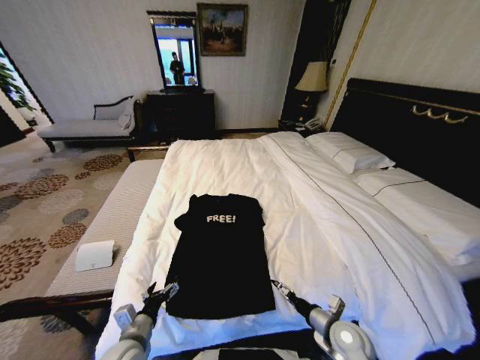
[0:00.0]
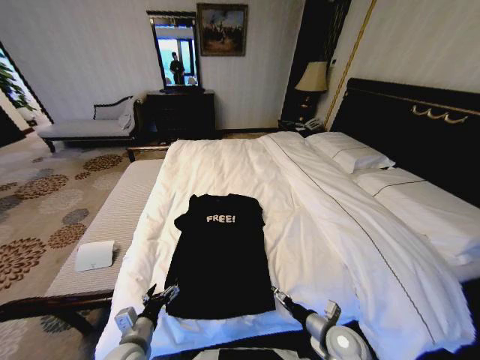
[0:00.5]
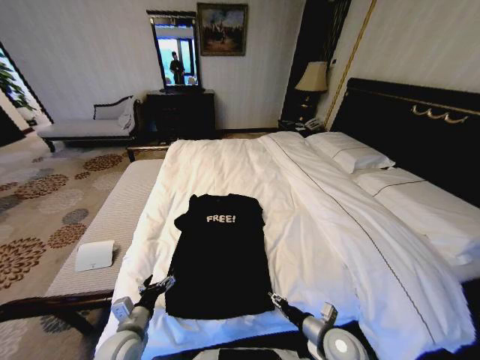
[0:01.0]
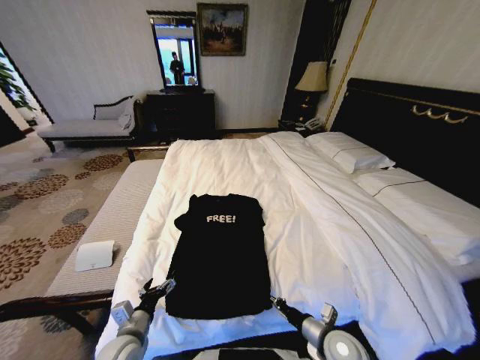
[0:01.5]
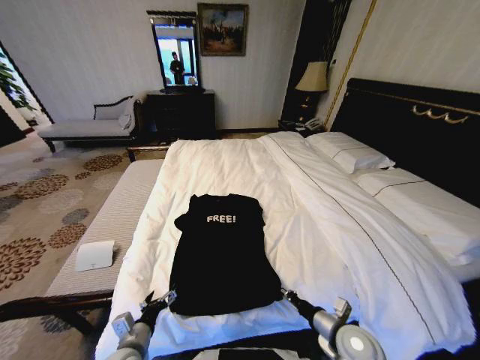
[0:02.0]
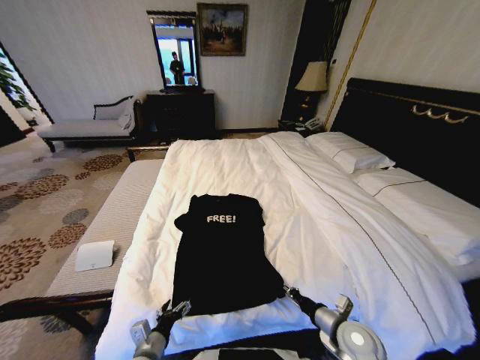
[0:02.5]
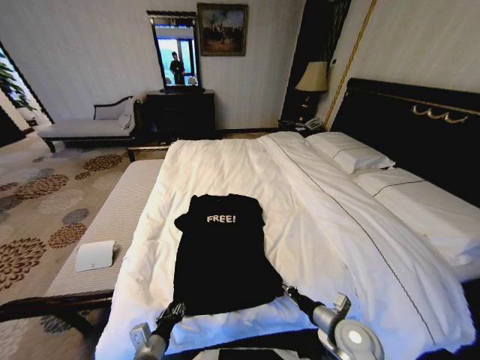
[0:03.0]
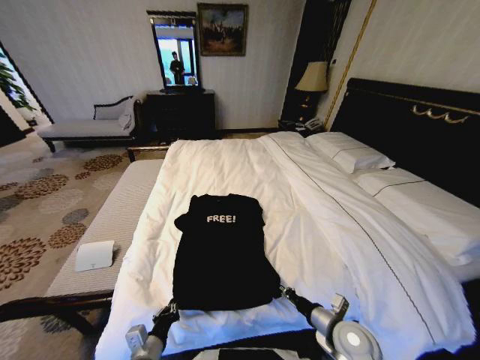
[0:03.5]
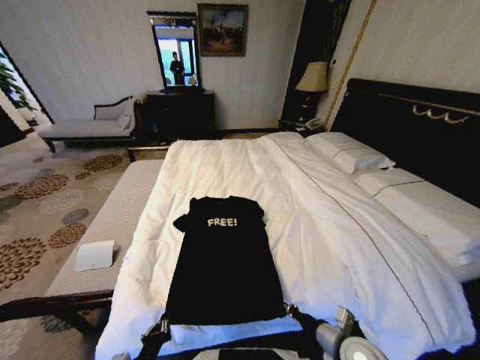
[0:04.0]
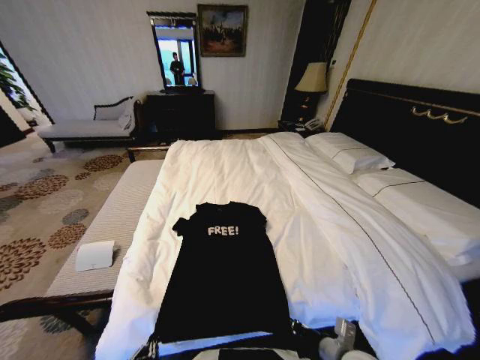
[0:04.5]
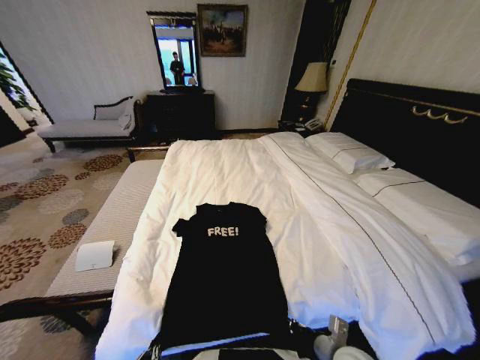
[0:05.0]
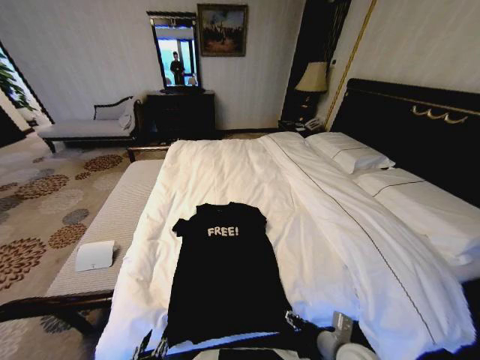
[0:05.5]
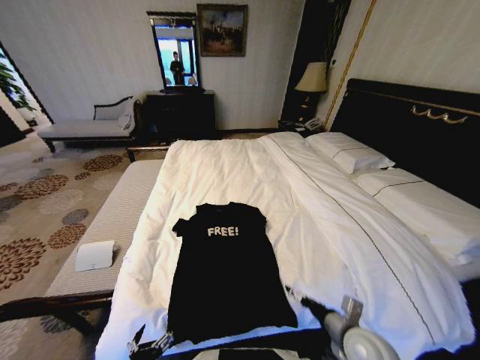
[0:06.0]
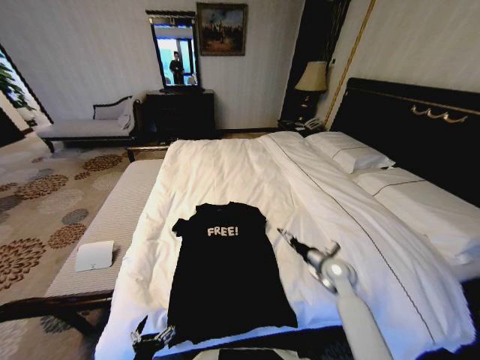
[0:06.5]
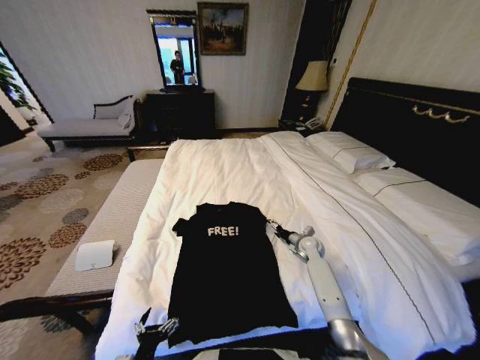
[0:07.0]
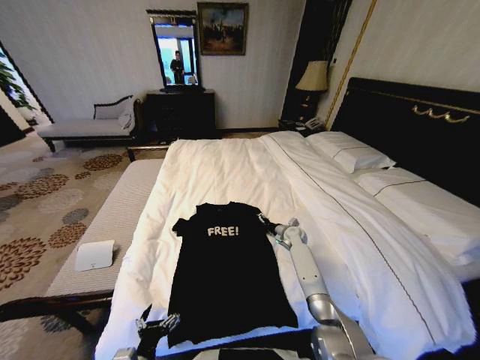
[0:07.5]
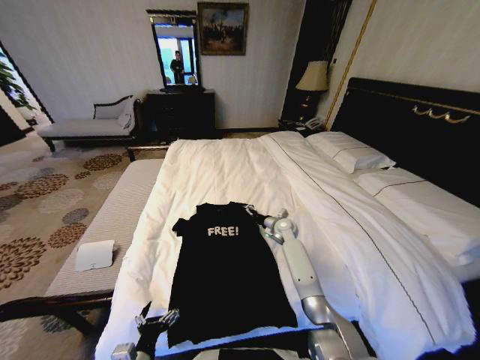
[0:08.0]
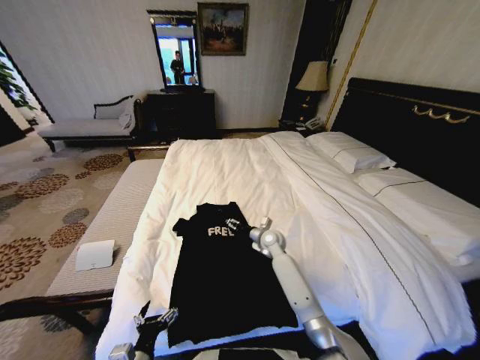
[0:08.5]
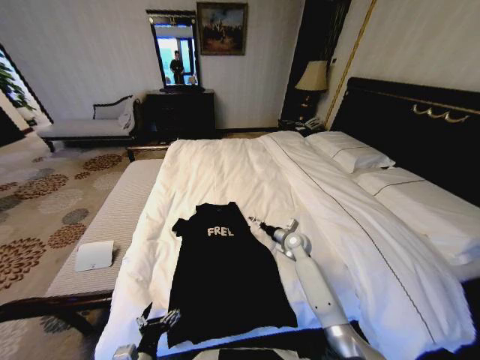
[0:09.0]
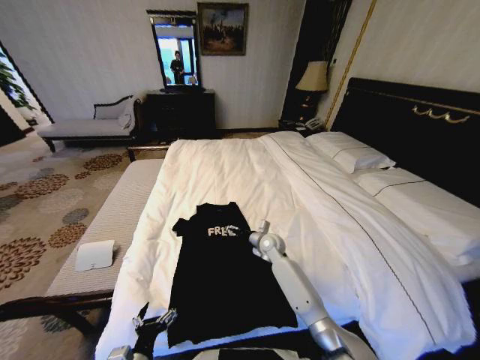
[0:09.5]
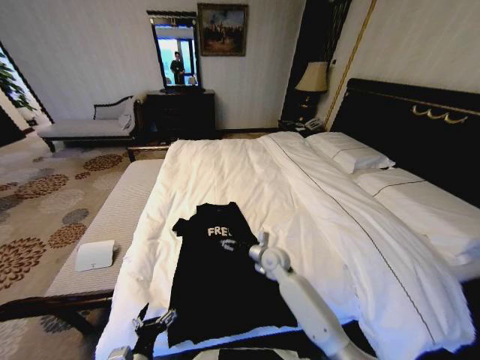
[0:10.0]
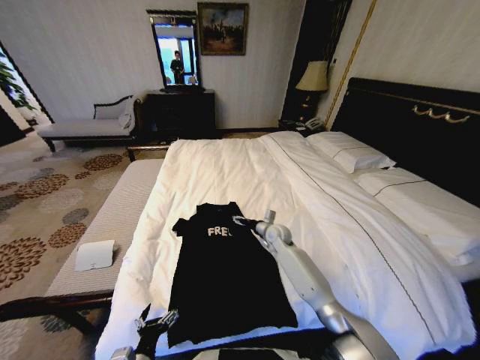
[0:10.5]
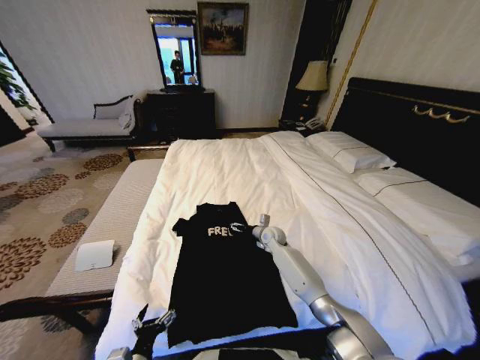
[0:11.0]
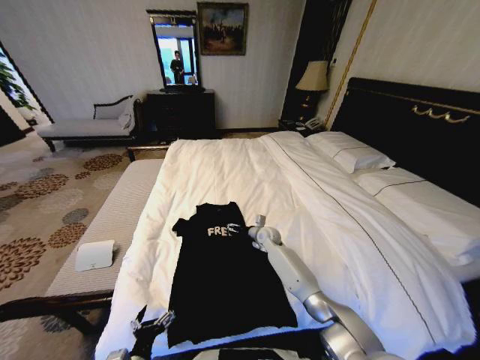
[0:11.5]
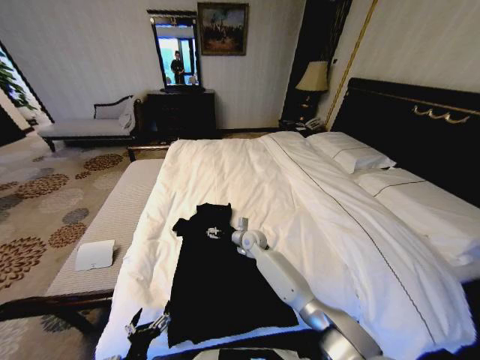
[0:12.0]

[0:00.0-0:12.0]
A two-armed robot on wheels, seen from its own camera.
Task of the whole recording: Fold the clothes on the bed.
0:00.0 to 0:02.0: The right gripper closes its fingers.
0:02.0 to 0:04.0: The left gripper goes about 10 cm backward, and closes up.
0:04.0 to 0:06.0: The left gripper opens up; the right gripper opens up.
0:06.0 to 0:08.0: The left gripper travels forward by approximately 5 cm; the right gripper shifts approximately 35 cm forward.
0:08.0 to 0:10.0: The right gripper shifts roughly 15 cm backward and to the left.
0:10.0 to 0:12.0: The right gripper moves forward and to the left, approximately 10 cm.

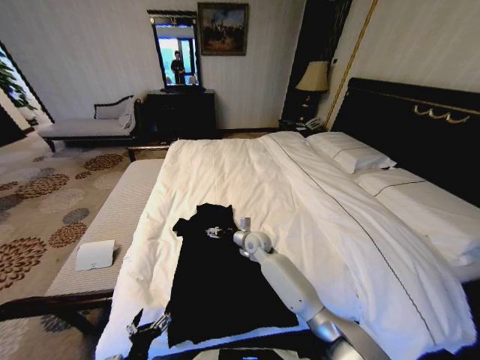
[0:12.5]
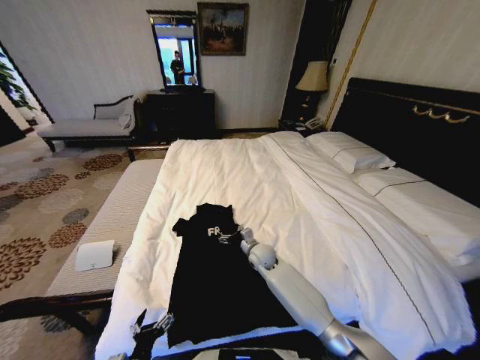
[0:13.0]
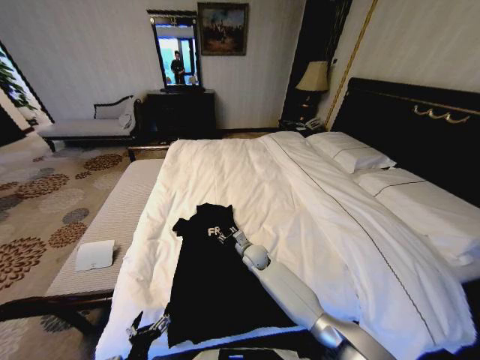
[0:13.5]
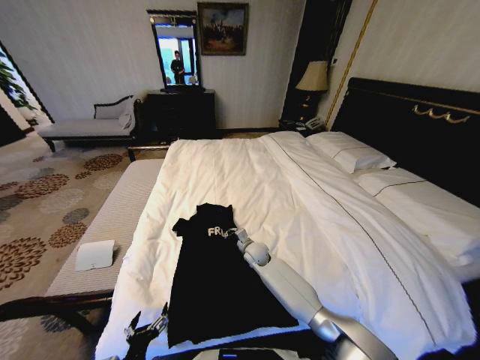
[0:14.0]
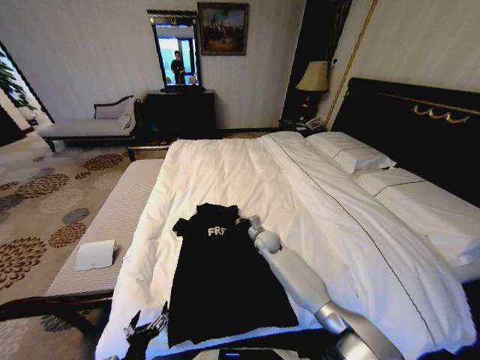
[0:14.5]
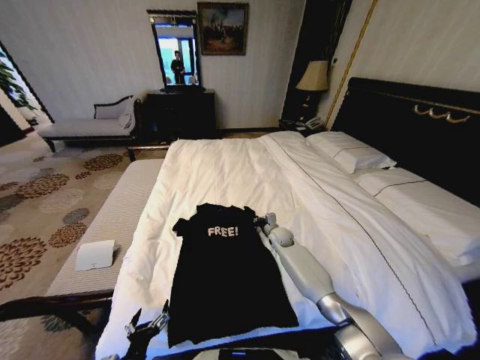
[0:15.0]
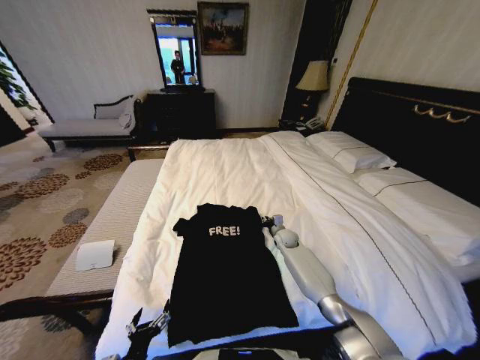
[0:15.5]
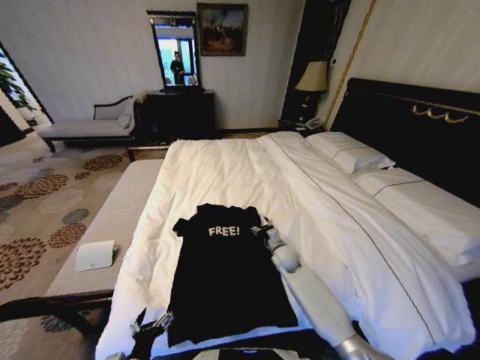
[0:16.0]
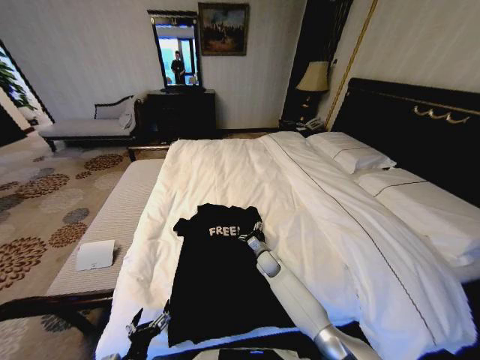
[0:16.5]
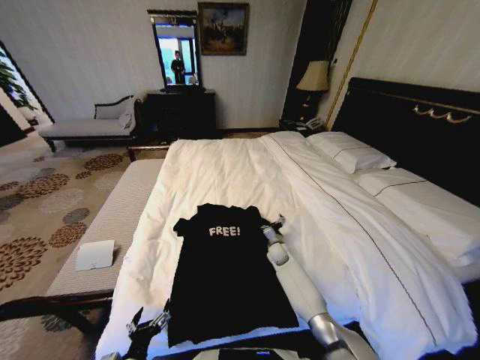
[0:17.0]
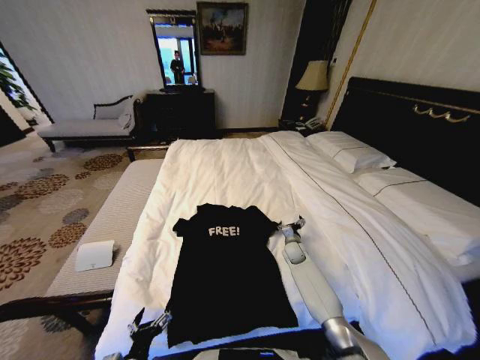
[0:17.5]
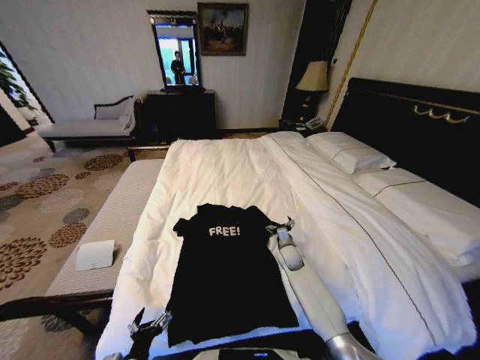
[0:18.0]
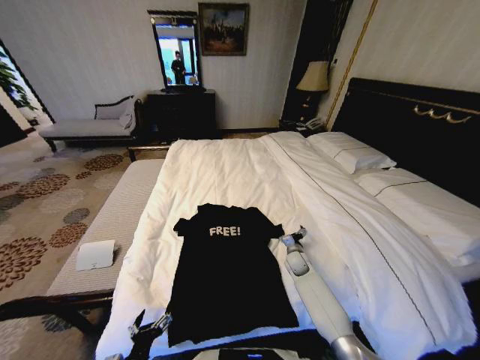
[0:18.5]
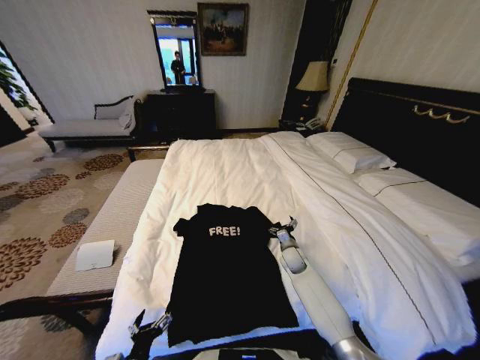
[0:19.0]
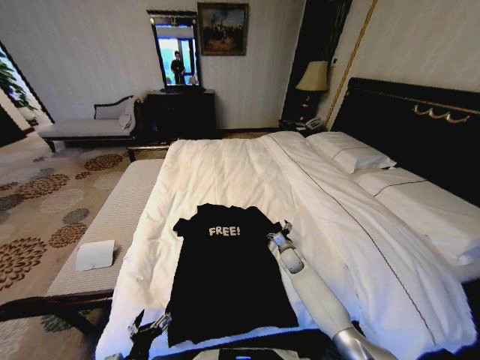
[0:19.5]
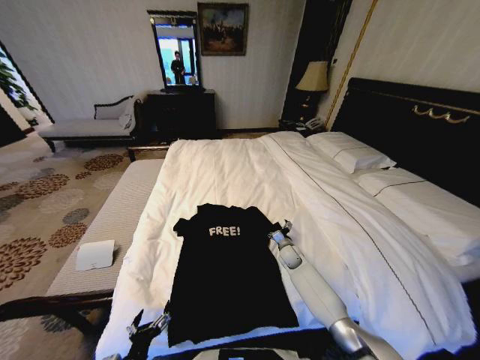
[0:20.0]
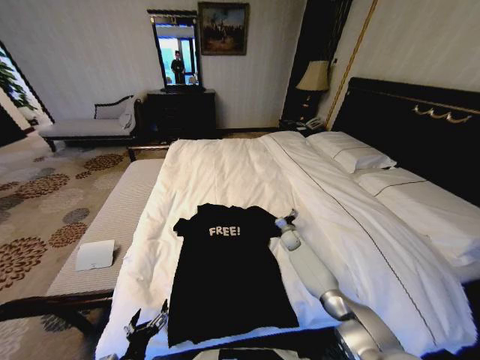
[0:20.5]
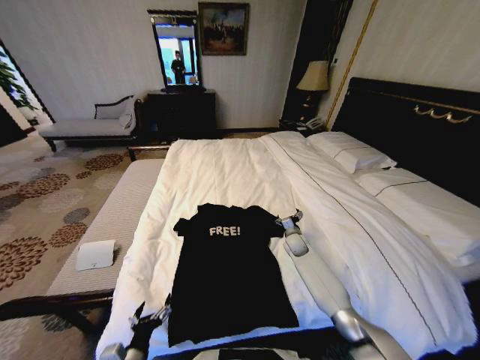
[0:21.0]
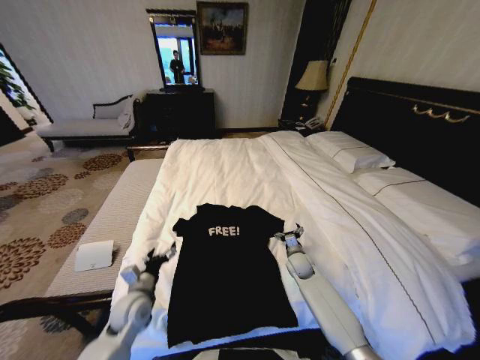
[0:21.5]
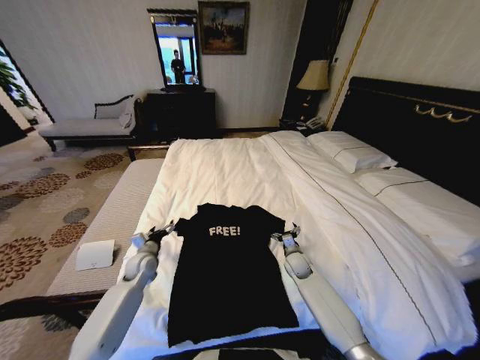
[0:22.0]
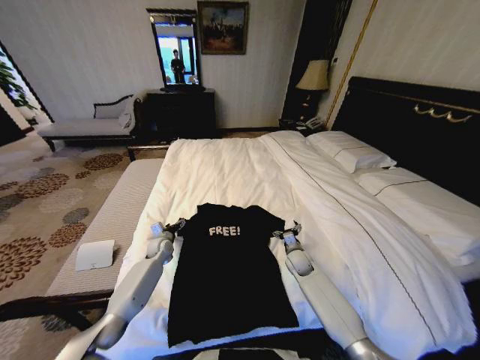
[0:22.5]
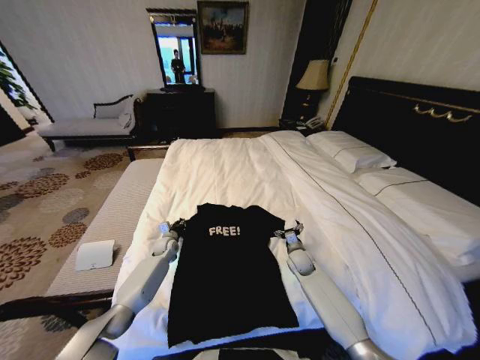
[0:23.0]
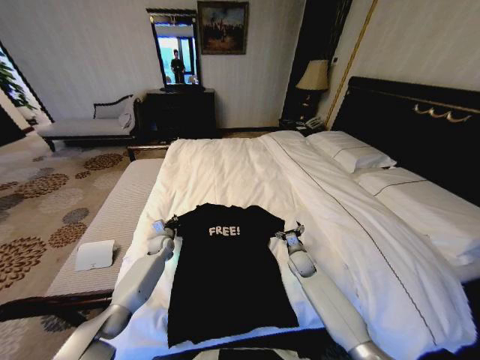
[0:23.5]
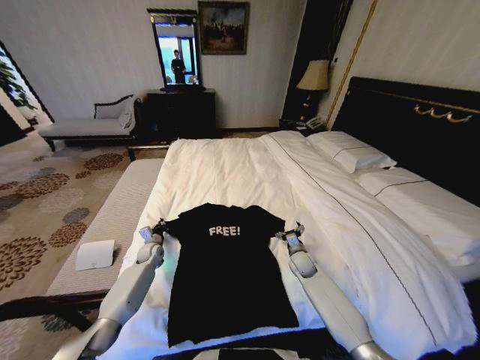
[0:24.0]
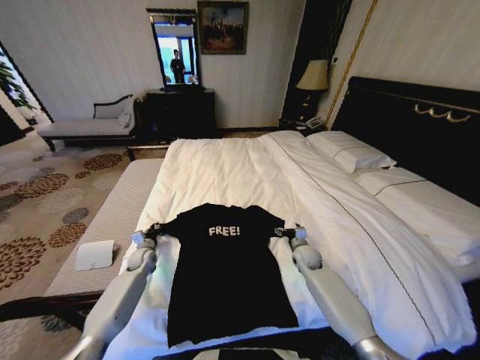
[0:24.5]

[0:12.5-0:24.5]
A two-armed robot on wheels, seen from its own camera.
Task of the whole recording: Fold the clothes on the bed.
0:12.5 to 0:14.5: The right gripper travels to the right by about 5 cm, and closes its fingers.
0:14.5 to 0:16.5: The right gripper heads downward and backward, covering about 10 cm, and opens.
0:16.5 to 0:18.5: The right gripper shifts some 10 cm to the right.
0:18.5 to 0:20.5: The right gripper travels forward by approximately 10 cm.
0:20.5 to 0:22.5: The right gripper shifts roughly 10 cm backward. The left gripper is displaced forward by some 40 cm.
0:22.5 to 0:24.5: The left gripper heads to the left, covering roughly 5 cm, and closes its fingers.

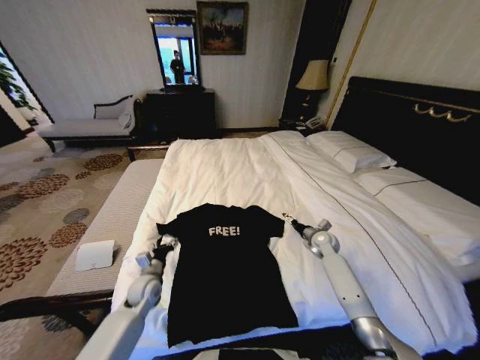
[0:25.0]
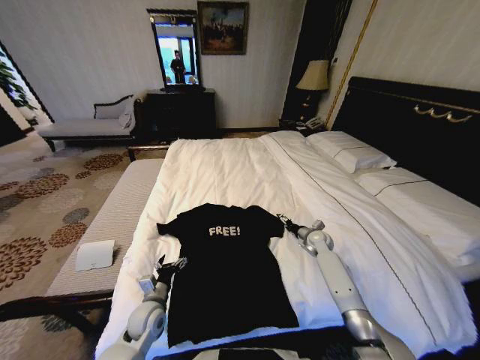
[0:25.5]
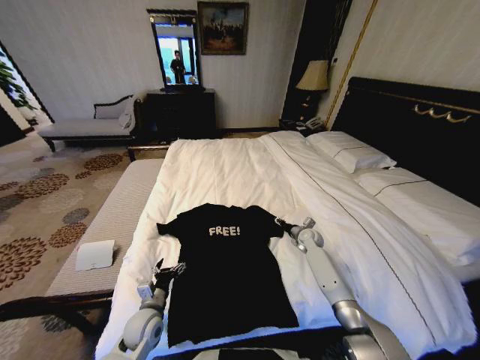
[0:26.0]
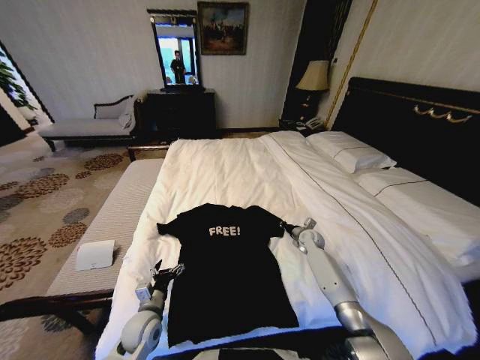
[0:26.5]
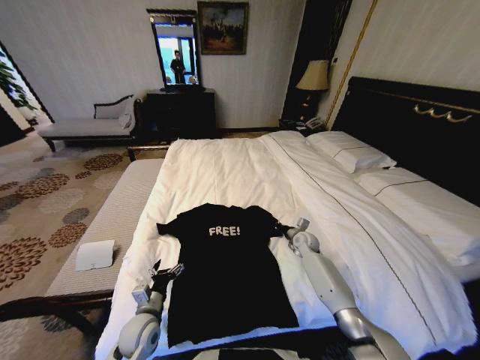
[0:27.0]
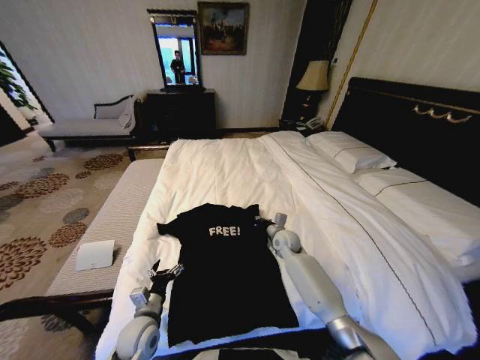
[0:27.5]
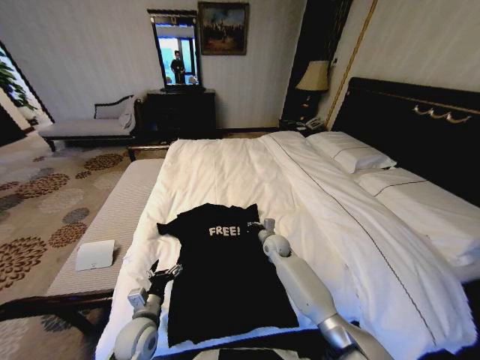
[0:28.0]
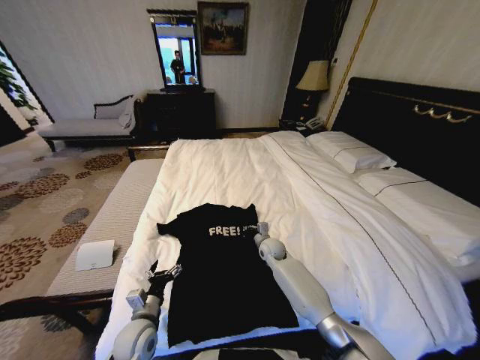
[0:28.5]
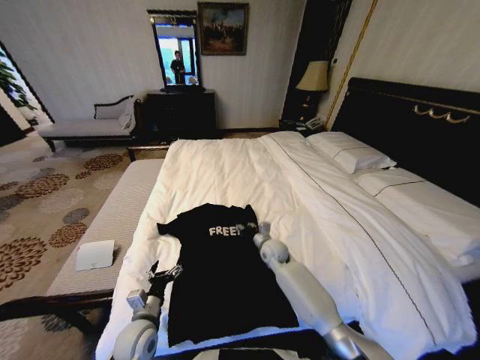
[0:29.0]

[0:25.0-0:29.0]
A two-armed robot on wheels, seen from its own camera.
Task of the whole recording: Fold the clothes on the bed.
0:25.0 to 0:27.0: The left gripper moves backward, some 10 cm. The right gripper travels to the left by about 5 cm, and closes its fingers.
0:27.0 to 0:29.0: The right gripper shifts some 15 cm to the left, and opens its fingers.
